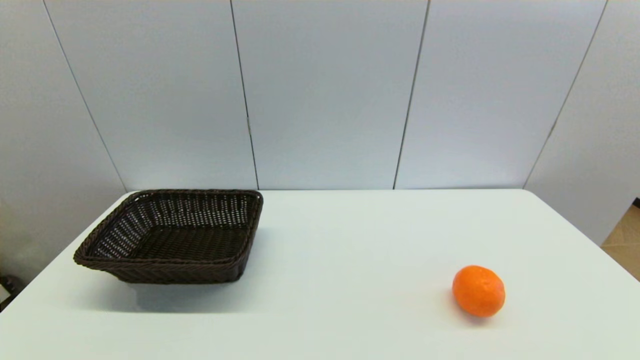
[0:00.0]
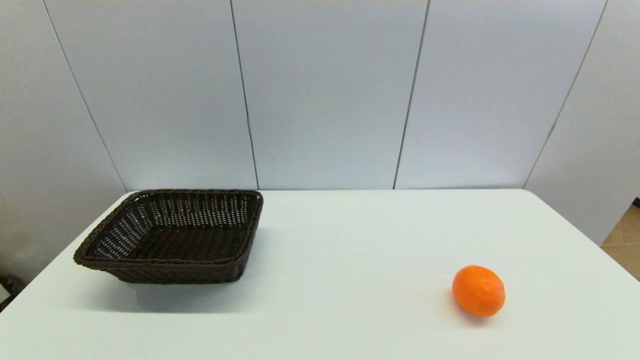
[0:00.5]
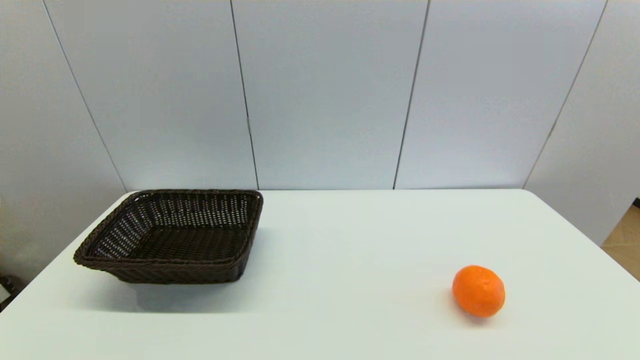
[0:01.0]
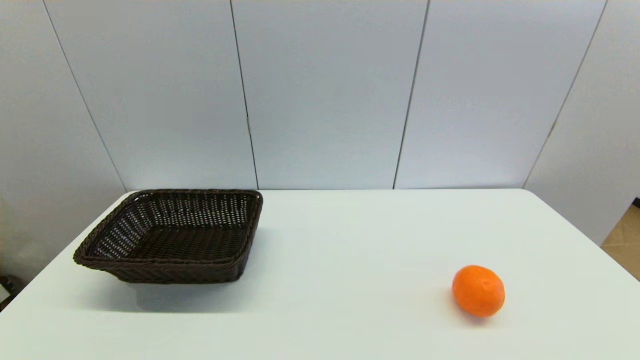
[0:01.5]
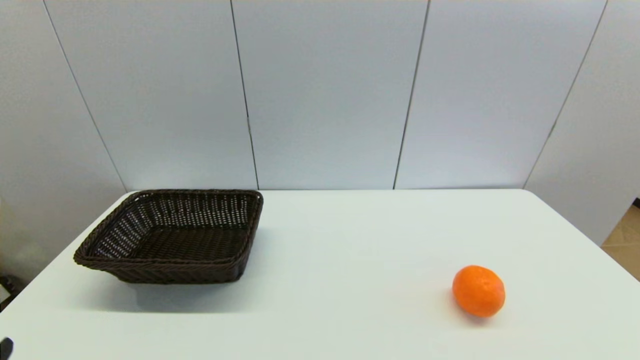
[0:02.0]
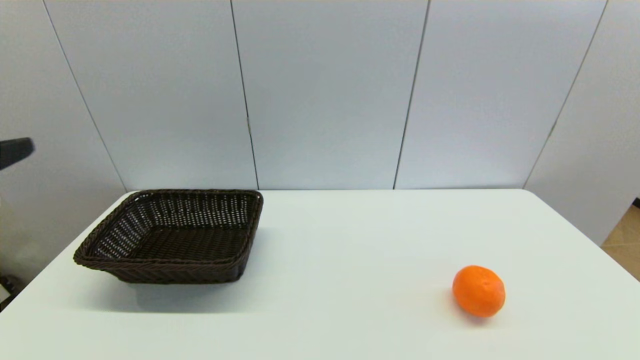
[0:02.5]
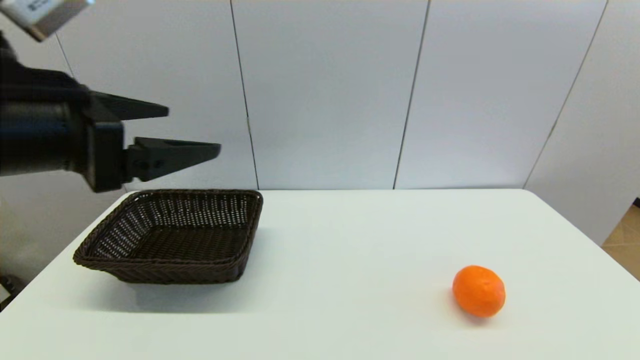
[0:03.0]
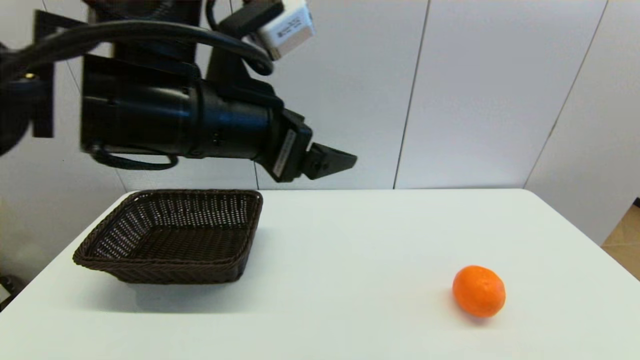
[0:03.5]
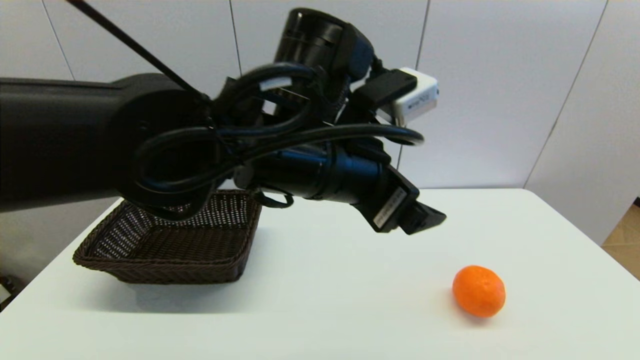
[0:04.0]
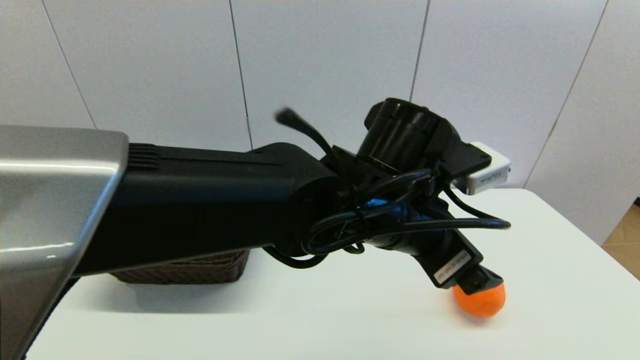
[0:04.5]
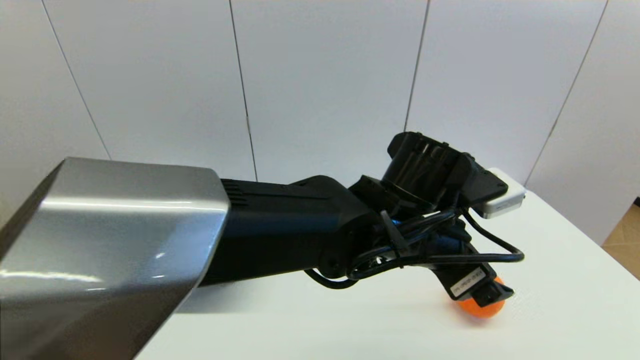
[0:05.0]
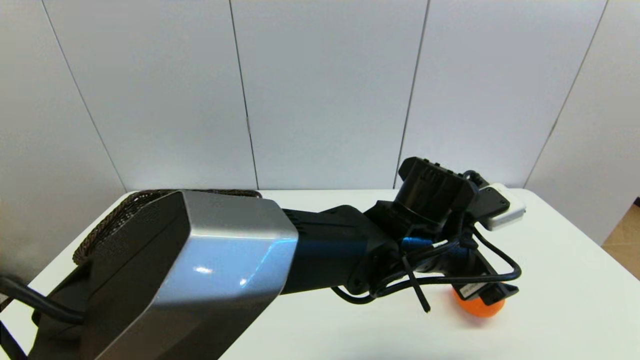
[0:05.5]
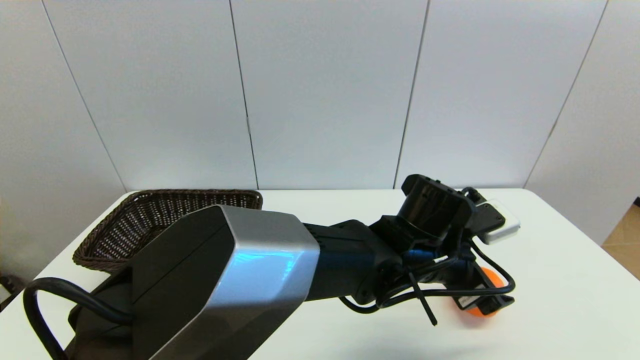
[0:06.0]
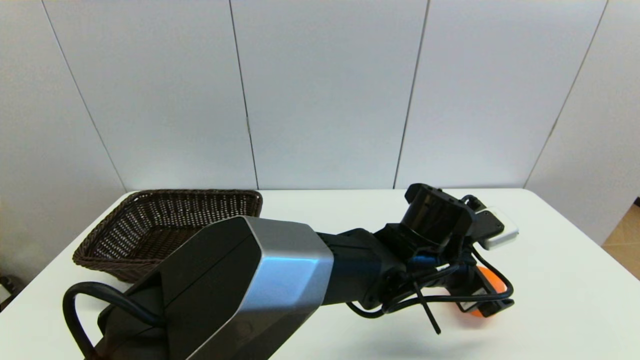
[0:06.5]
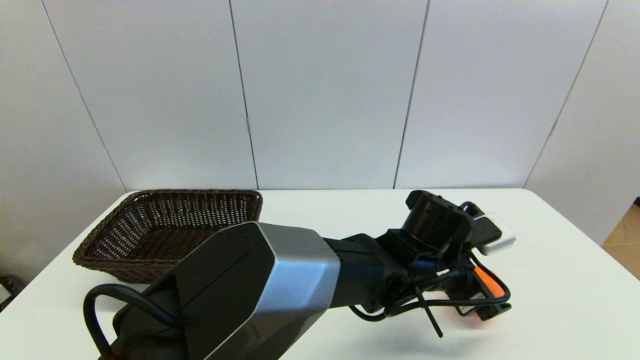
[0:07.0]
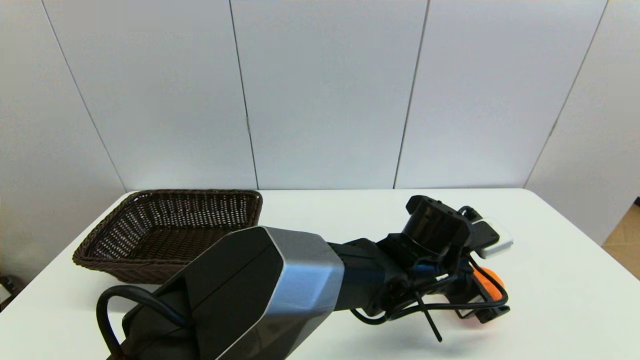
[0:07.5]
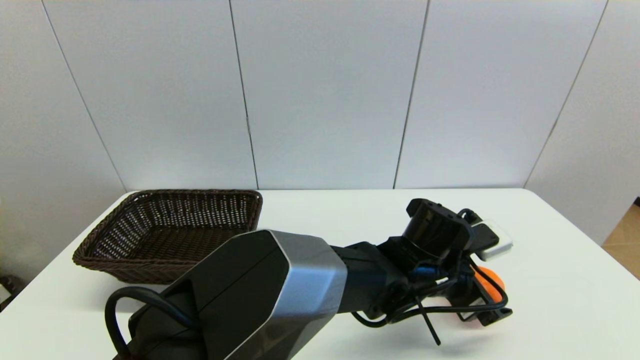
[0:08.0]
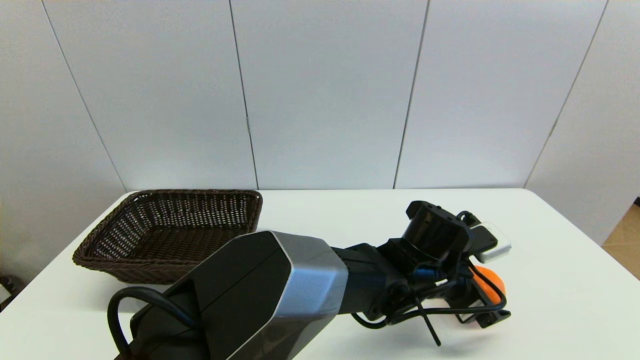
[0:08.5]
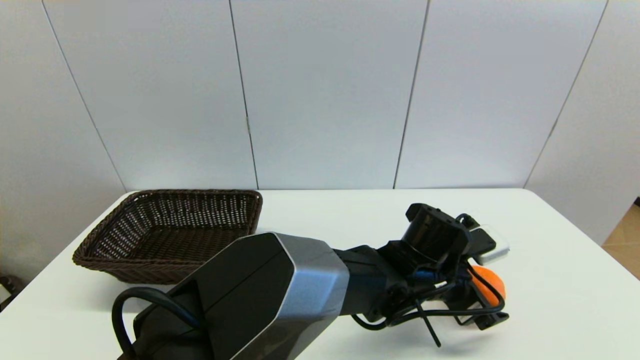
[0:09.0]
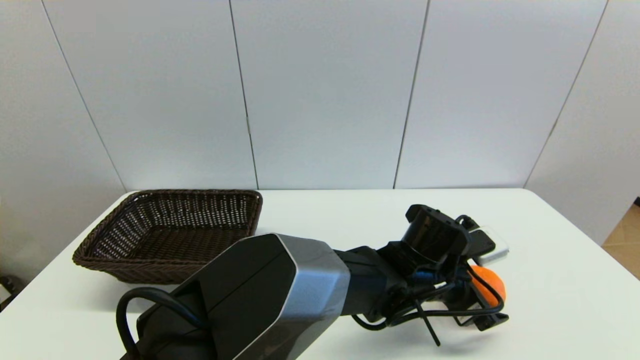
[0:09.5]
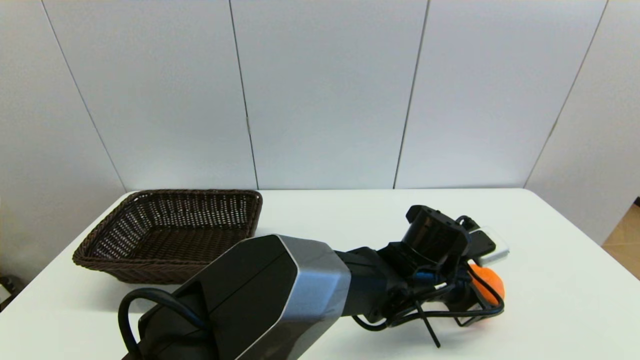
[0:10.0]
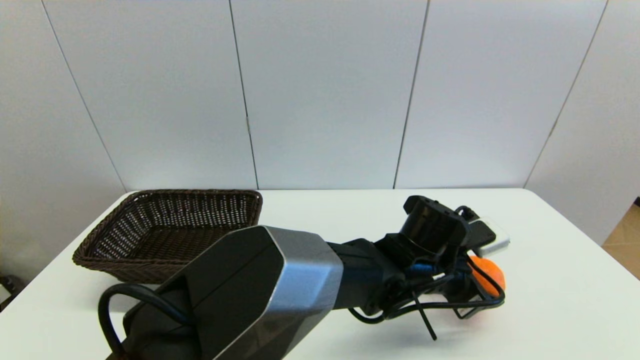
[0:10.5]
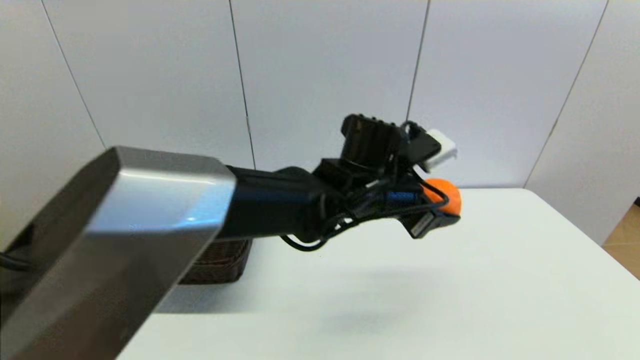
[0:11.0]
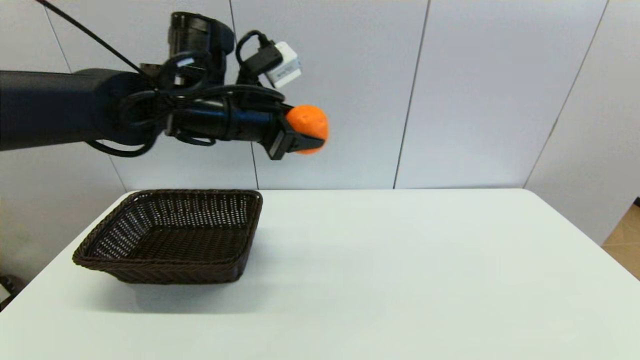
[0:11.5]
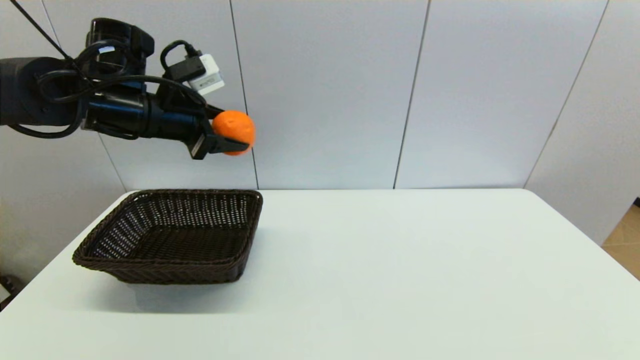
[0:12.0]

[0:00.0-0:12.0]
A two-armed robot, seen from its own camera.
Step, 0:03.0 to 0:10.0: Grasp the orange with left gripper.
0:02.0 to 0:04.0: The left gripper moves to the right and forward, roughly 40 cm.
0:04.0 to 0:06.0: The left gripper shifts some 20 cm downward and to the right.
0:06.0 to 0:08.0: There are only small adjustments of the grippers.
0:08.0 to 0:10.0: The left gripper closes up.
0:10.0 to 0:12.0: The left gripper is displaced to the left and upward by roughly 40 cm.

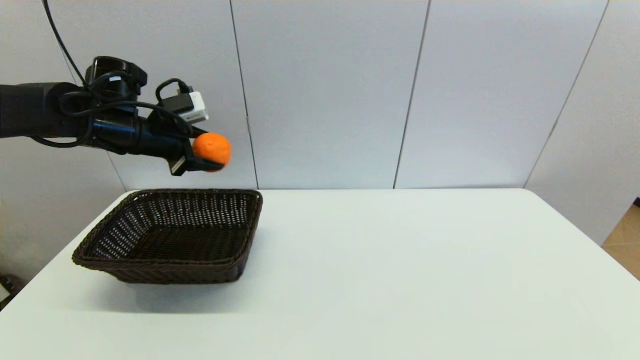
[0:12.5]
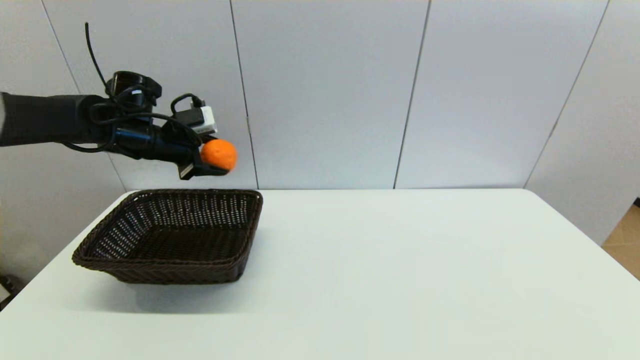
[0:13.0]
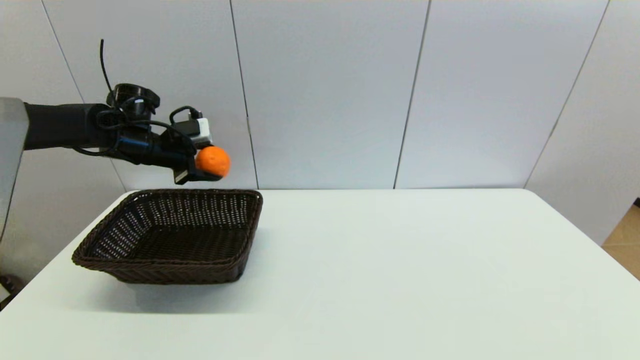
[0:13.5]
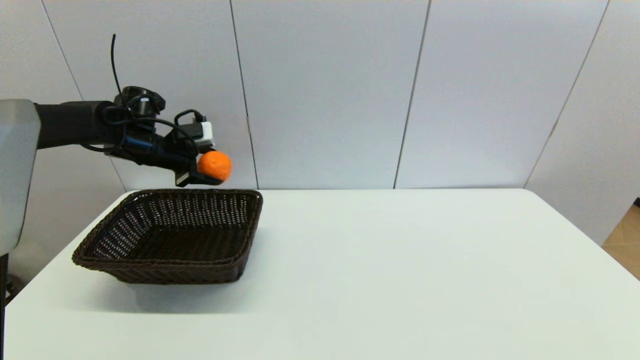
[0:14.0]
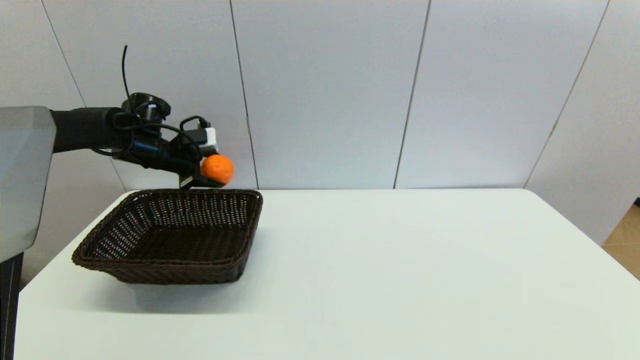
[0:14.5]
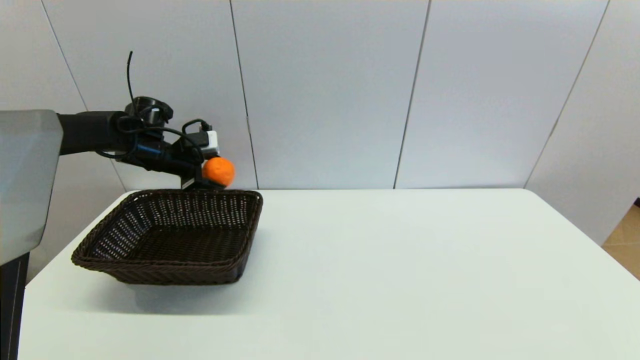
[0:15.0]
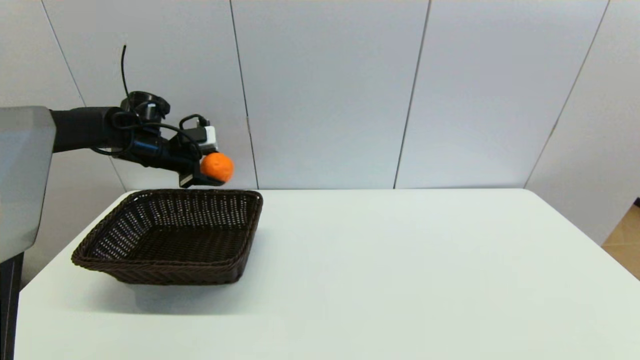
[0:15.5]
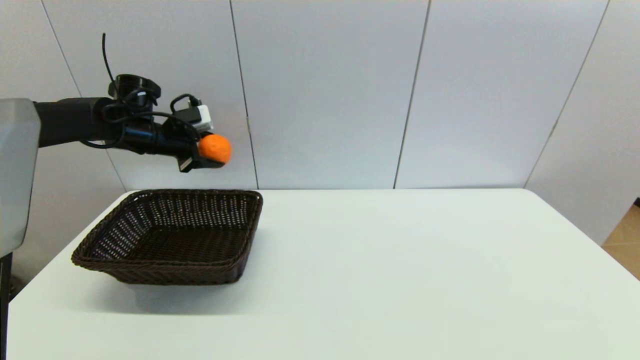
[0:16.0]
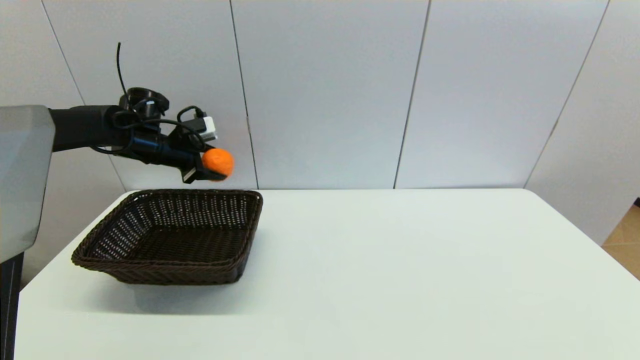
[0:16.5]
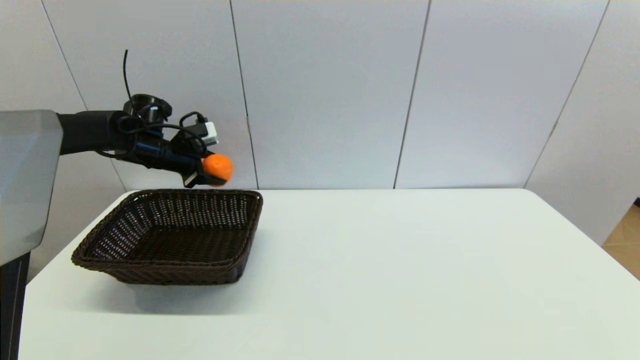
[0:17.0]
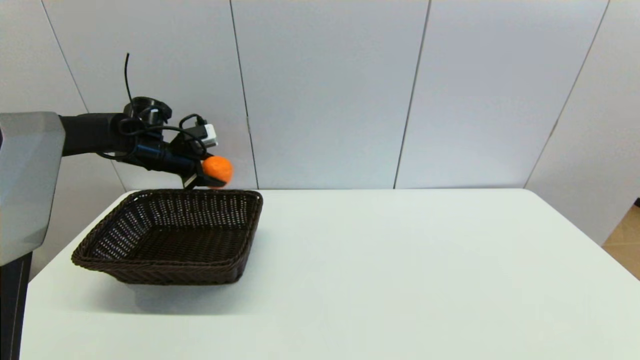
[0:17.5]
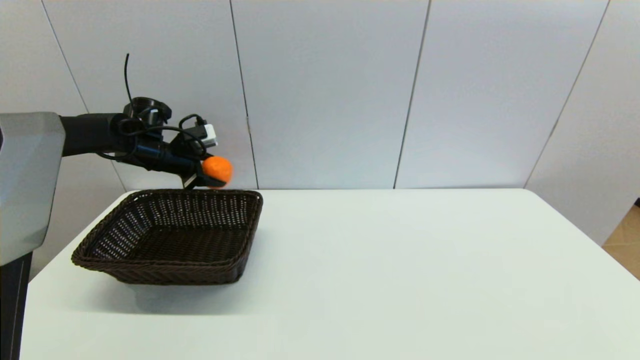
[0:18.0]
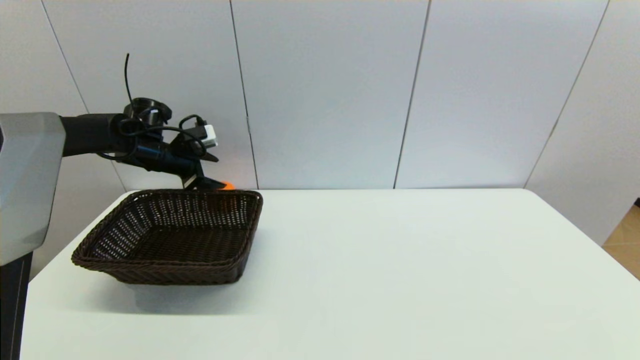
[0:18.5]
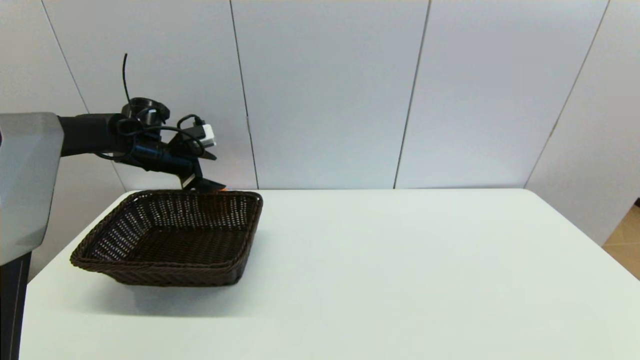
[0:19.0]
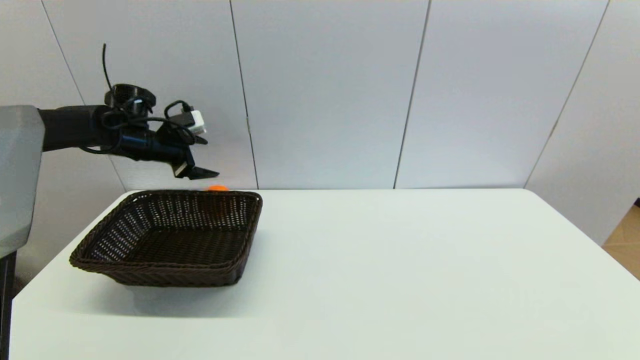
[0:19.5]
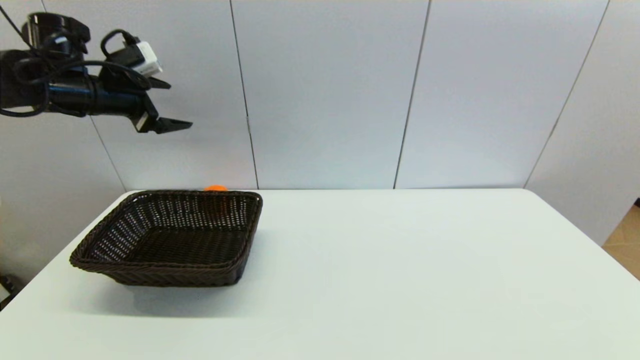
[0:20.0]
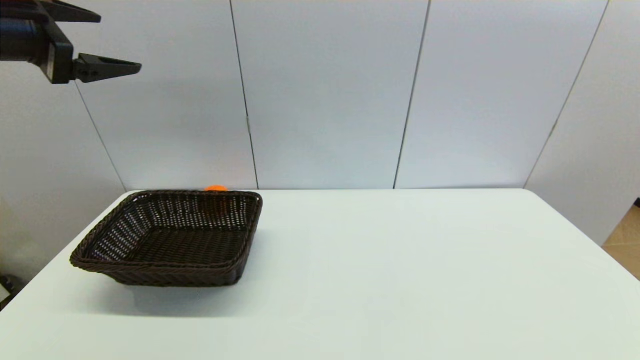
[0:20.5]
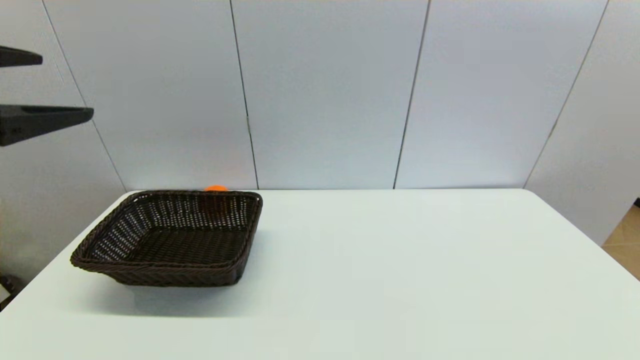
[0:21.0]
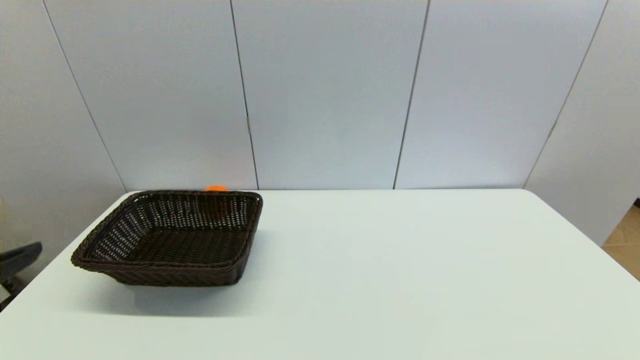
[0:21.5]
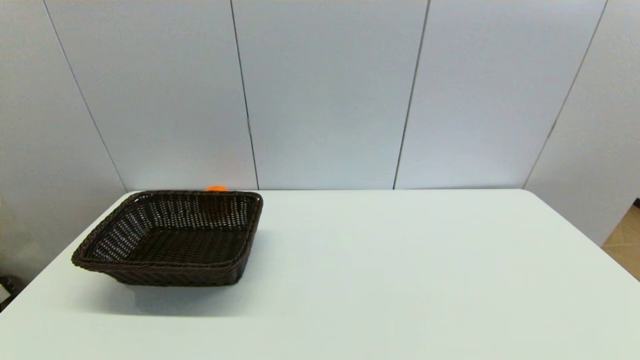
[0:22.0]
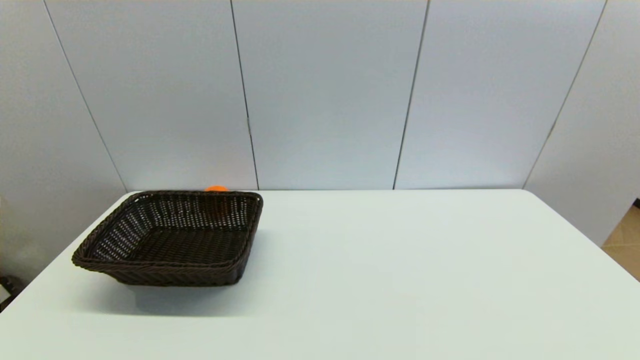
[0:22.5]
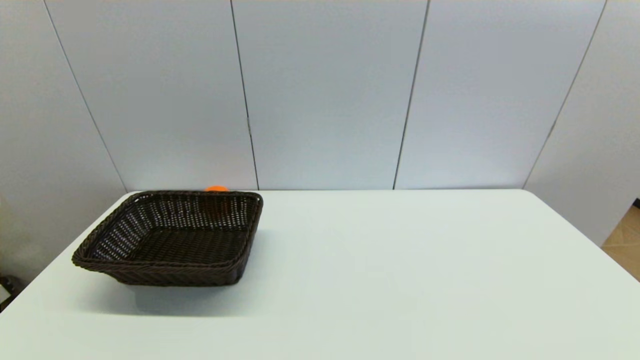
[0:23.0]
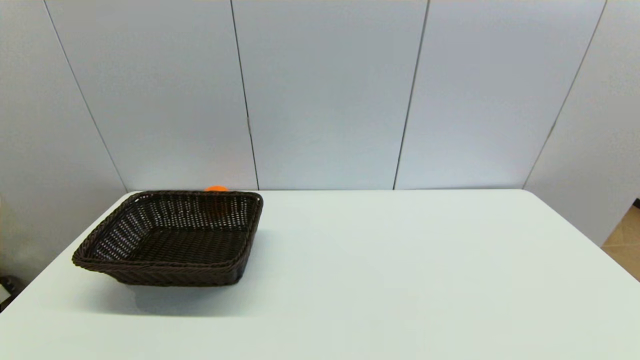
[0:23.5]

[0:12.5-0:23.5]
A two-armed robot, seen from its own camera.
Step, 0:12.5 to 0:19.0: Place the orange on the table with left gripper.
0:12.5 to 0:14.5: The left gripper goes approximately 10 cm forward and downward.
0:14.5 to 0:18.0: The grippers stay close to where they were, moving slightly.
0:18.0 to 0:20.0: The left gripper heads upward and backward, covering some 15 cm, and opens up.
0:20.0 to 0:21.5: The left gripper heads backward, covering about 35 cm.
